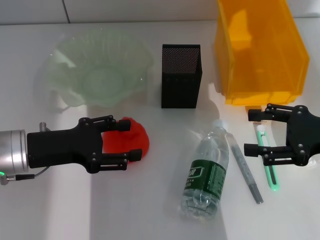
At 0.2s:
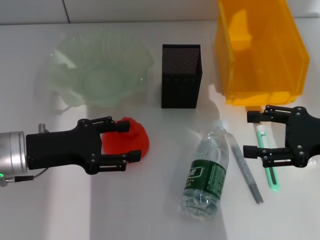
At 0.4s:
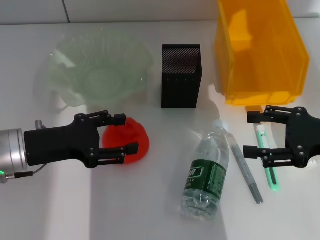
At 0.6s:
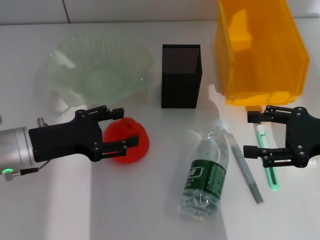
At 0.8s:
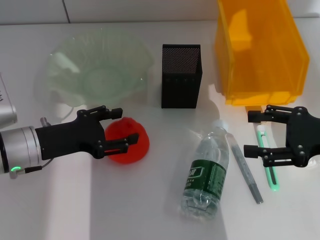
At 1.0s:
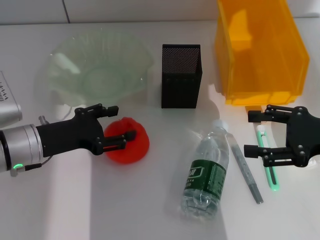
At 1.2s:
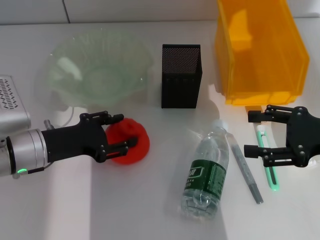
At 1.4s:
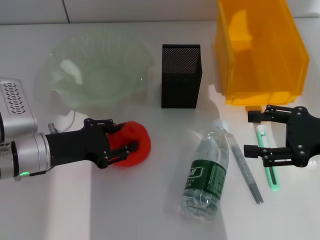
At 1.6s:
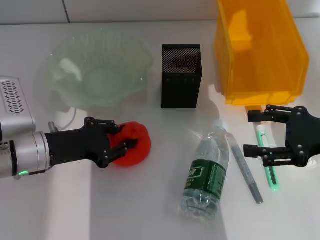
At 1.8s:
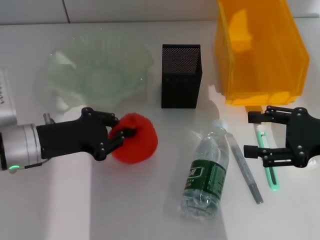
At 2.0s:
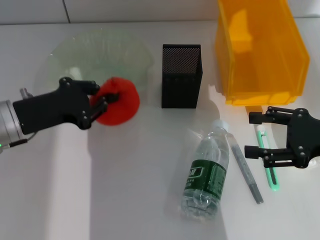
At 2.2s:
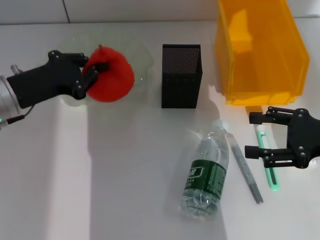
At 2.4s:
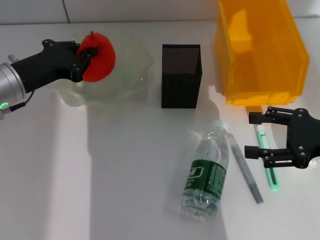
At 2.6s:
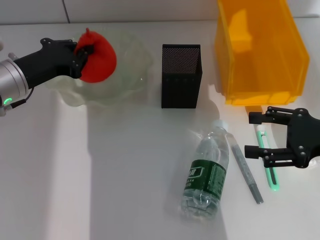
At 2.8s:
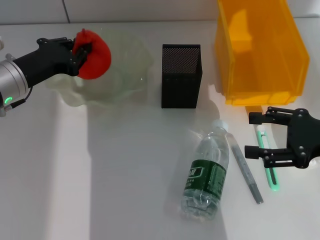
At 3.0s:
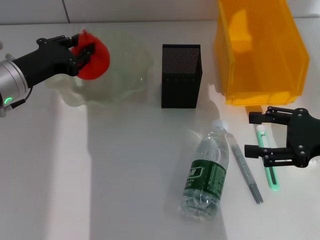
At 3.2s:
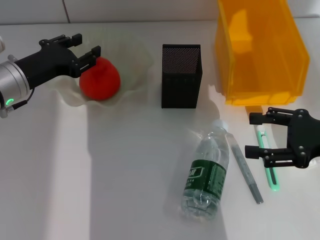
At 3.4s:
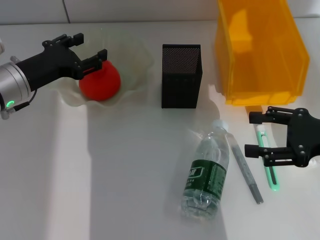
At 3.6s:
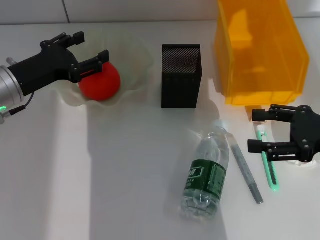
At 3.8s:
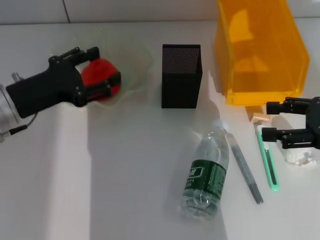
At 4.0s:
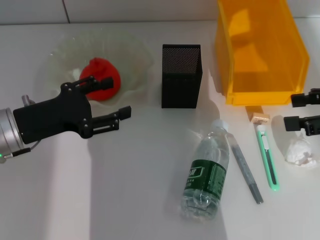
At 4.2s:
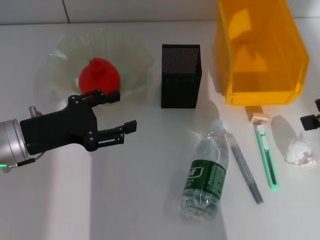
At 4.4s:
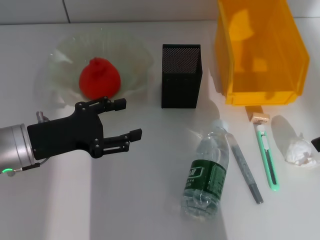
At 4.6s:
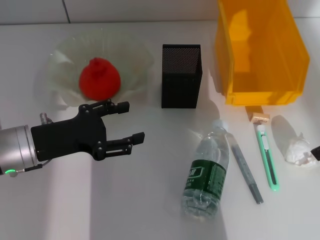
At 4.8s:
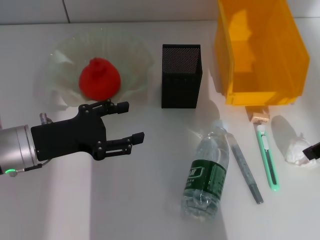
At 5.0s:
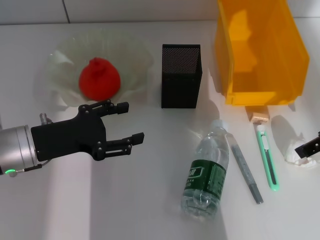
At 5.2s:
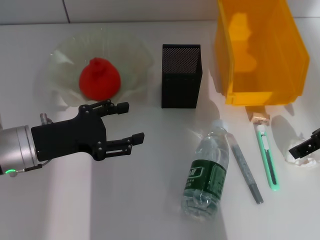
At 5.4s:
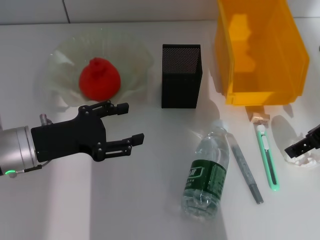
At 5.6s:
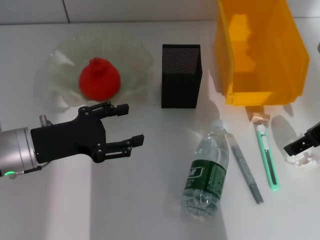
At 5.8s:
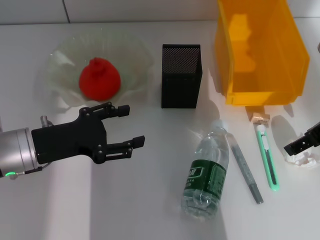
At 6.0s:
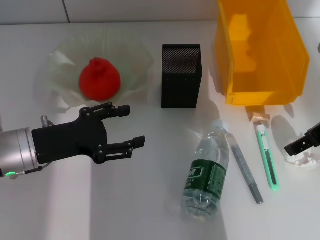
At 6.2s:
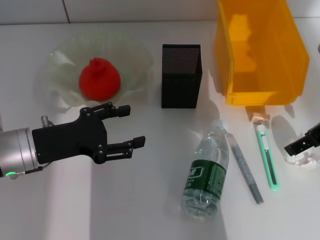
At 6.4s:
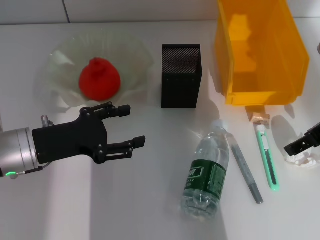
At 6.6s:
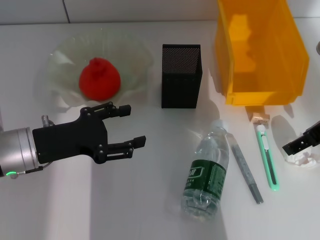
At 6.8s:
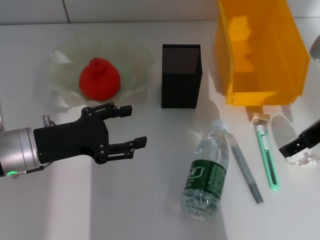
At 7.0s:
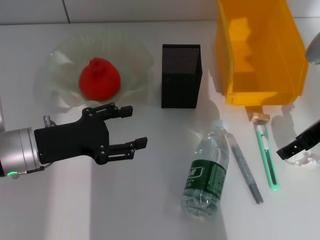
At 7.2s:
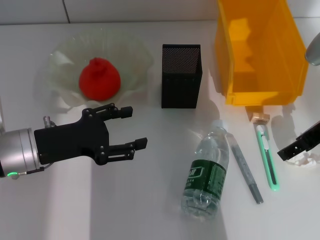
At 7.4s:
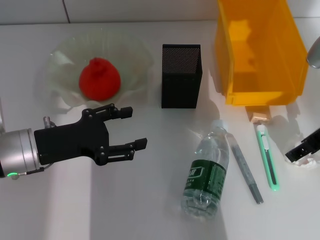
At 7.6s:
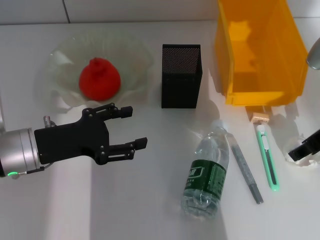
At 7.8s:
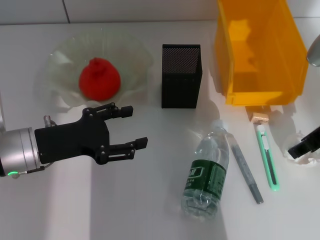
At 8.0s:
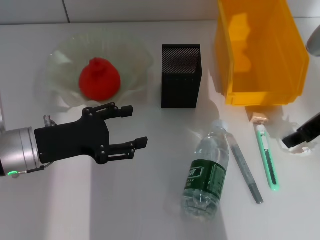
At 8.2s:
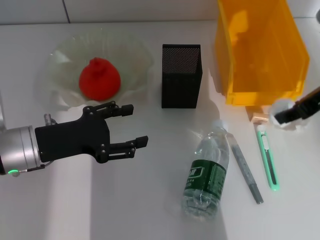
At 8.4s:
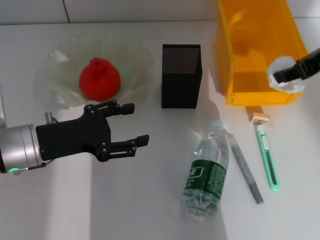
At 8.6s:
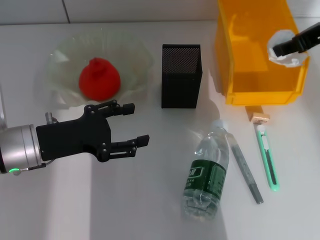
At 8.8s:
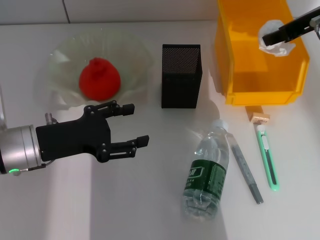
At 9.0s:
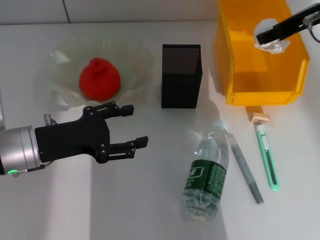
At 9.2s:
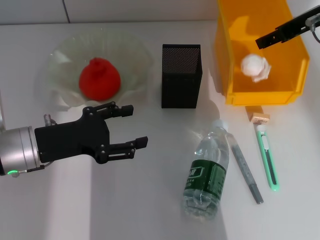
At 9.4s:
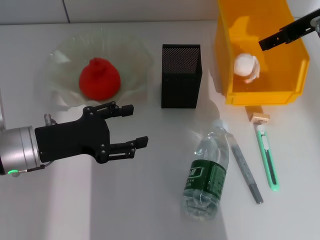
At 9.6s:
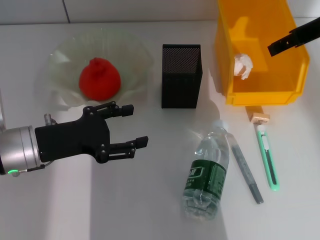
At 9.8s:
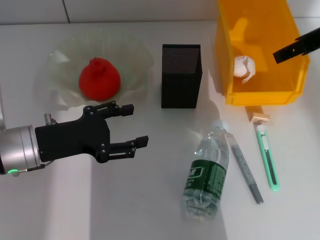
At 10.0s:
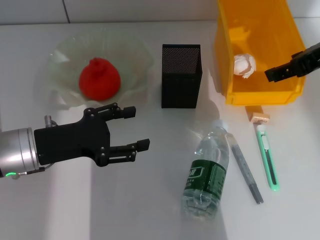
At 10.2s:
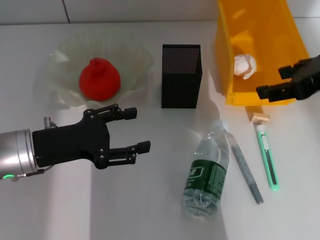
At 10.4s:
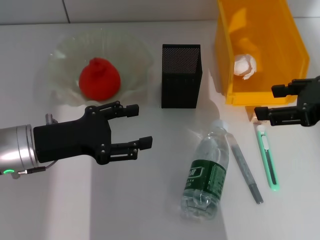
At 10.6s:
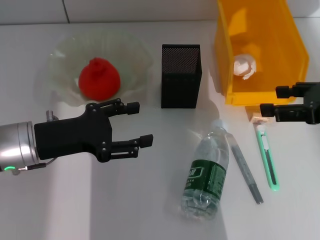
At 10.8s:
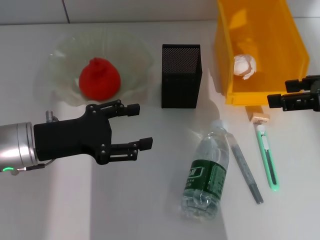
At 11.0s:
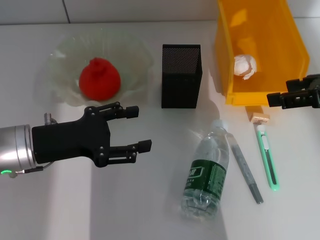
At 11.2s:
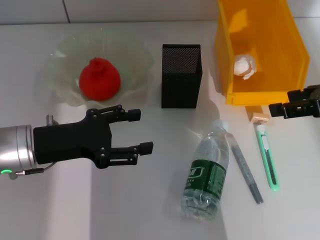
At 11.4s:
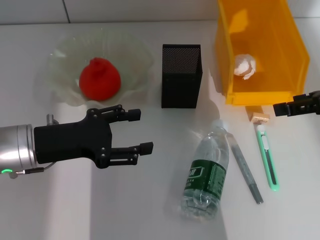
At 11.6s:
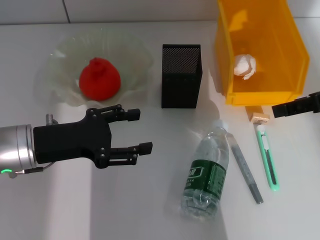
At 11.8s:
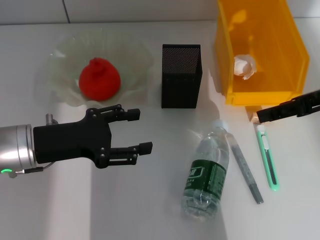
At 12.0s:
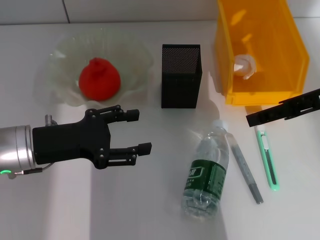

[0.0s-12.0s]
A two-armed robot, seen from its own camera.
Step, 0.0s to 1.6s: Grab the orange with the left hand.
Step, 1.8s to 3.4s: Place the orange into the fruit bowl with the left hand.
Step, 3.6s to 7.6s: Grab the paper ball with the right hand.
Step, 7.8s to 9.8s: Place the paper ball into the trash can with the right hand.
0.0s to 1.6s: The left gripper closes up.
1.6s to 3.0s: The left gripper is displaced forward by roughly 10 cm.
3.0s to 4.4s: The right gripper is displaced upward by some 15 cm. The left gripper shifts approximately 10 cm backward, and opens its fingers.
4.4s to 6.0s: The right gripper heads downward, covering some 5 cm.
6.0s to 7.6s: The grippers stay close to where they were, moving slightly.
7.6s to 9.0s: The right gripper heads forward and upward, covering approximately 10 cm.
9.0s to 10.4s: The right gripper heads backward, covering about 15 cm.
10.4s to 12.0s: The right gripper moves roughly 5 cm.

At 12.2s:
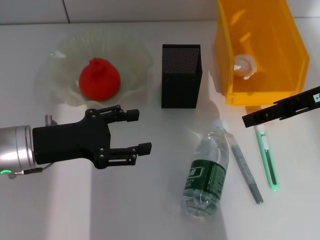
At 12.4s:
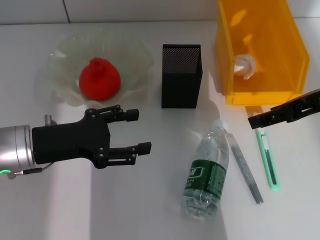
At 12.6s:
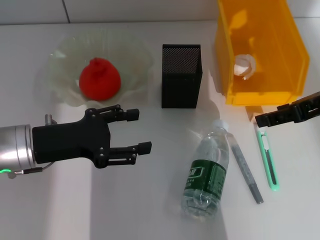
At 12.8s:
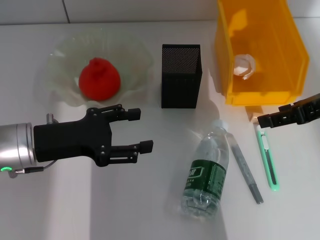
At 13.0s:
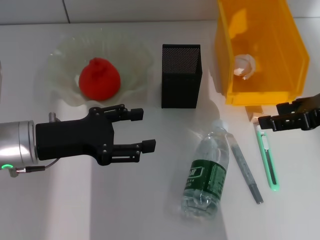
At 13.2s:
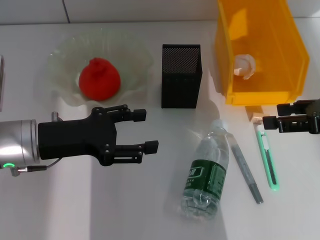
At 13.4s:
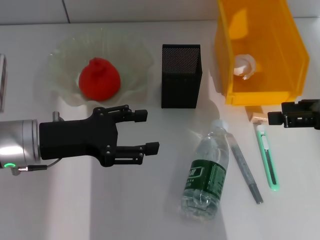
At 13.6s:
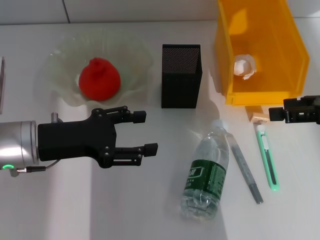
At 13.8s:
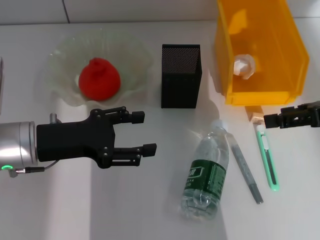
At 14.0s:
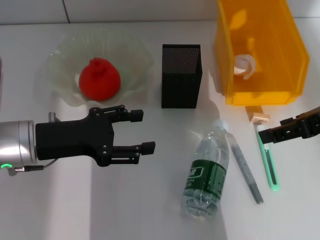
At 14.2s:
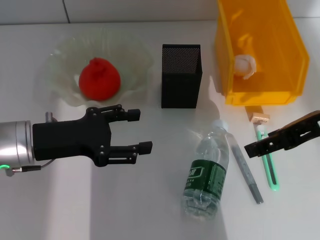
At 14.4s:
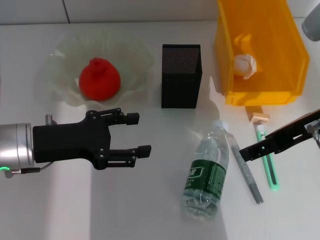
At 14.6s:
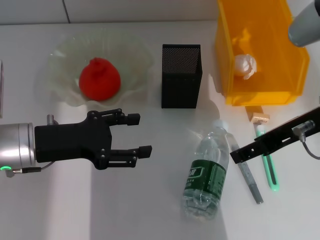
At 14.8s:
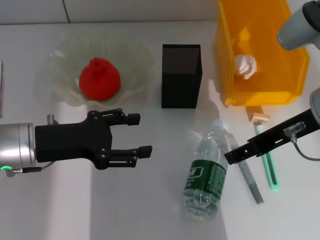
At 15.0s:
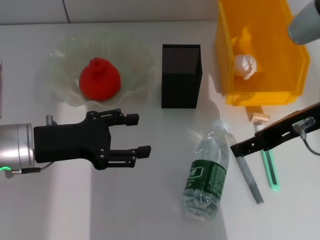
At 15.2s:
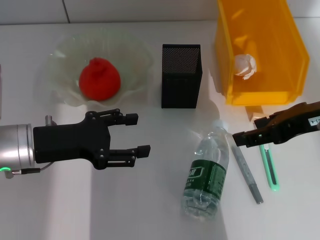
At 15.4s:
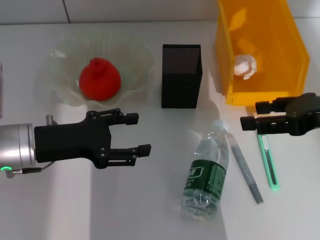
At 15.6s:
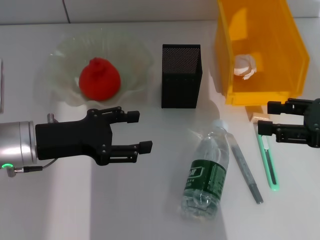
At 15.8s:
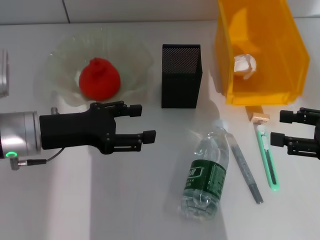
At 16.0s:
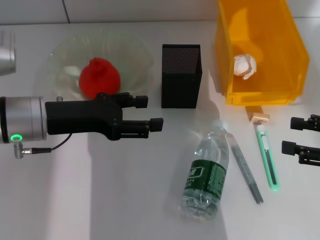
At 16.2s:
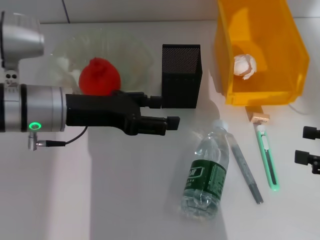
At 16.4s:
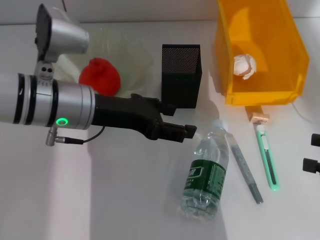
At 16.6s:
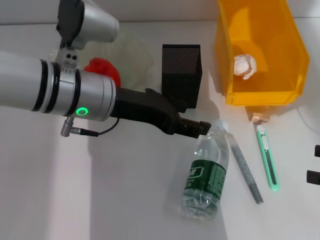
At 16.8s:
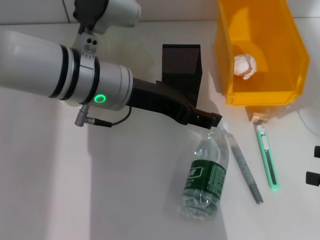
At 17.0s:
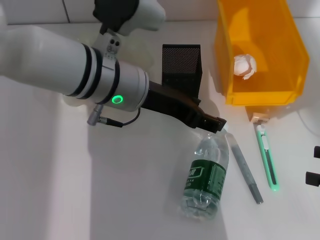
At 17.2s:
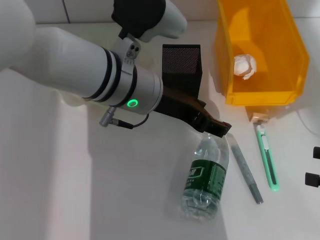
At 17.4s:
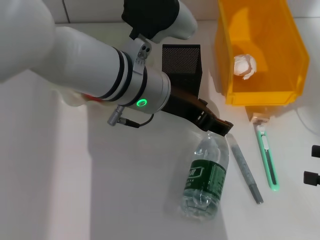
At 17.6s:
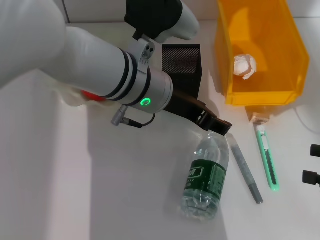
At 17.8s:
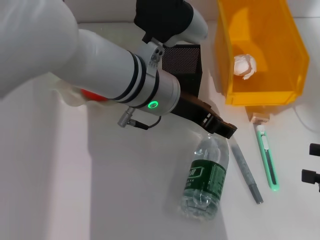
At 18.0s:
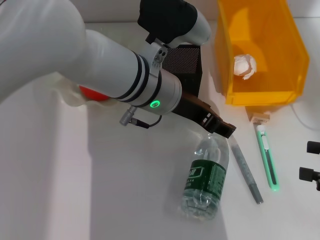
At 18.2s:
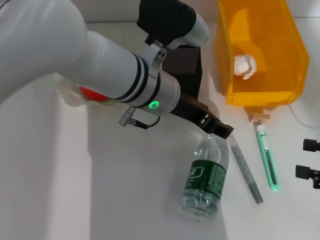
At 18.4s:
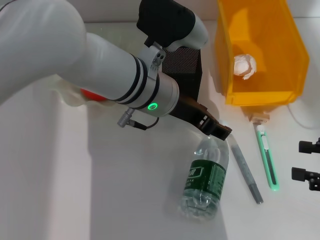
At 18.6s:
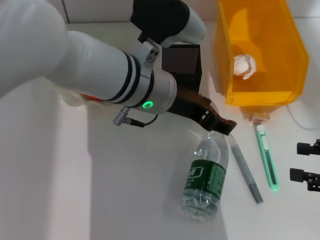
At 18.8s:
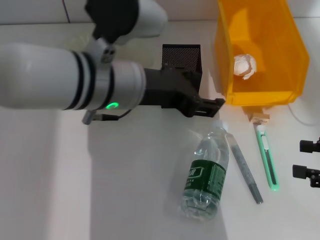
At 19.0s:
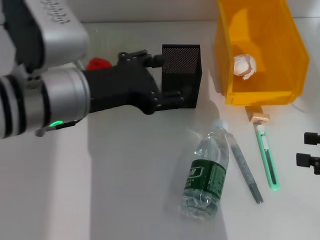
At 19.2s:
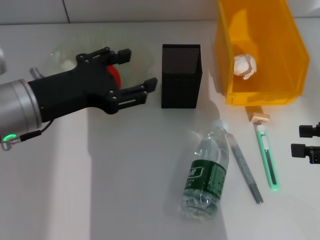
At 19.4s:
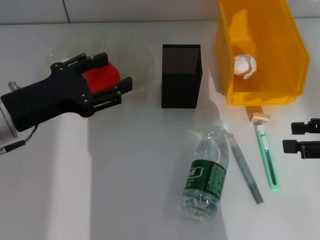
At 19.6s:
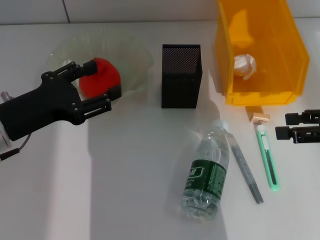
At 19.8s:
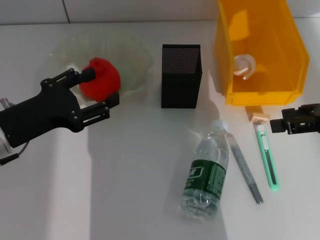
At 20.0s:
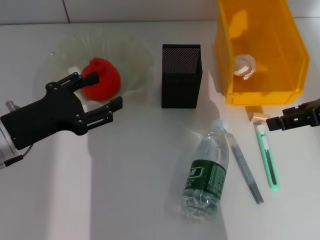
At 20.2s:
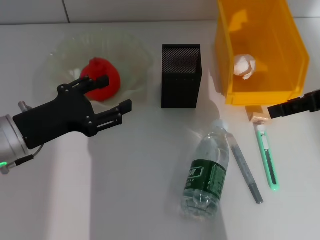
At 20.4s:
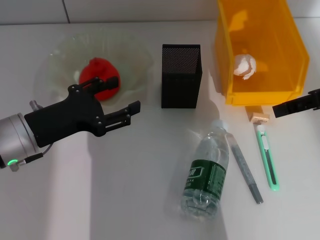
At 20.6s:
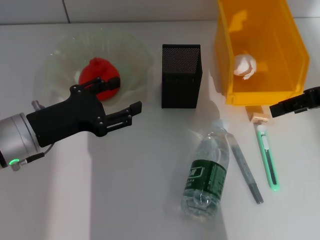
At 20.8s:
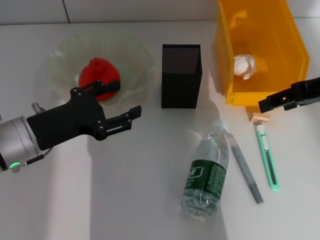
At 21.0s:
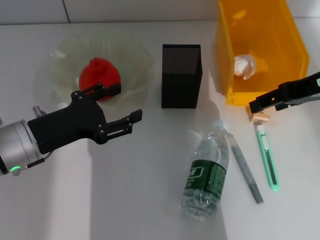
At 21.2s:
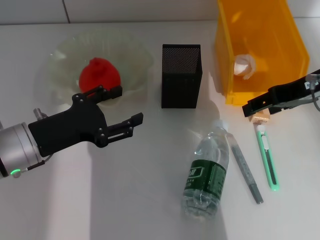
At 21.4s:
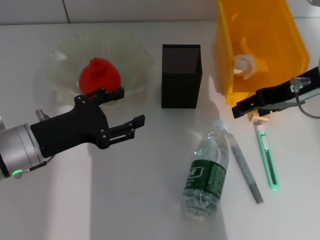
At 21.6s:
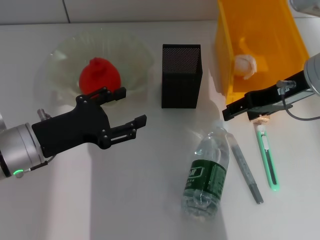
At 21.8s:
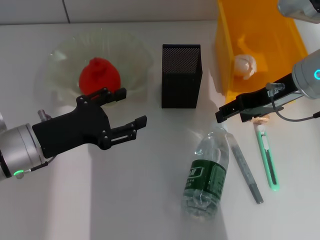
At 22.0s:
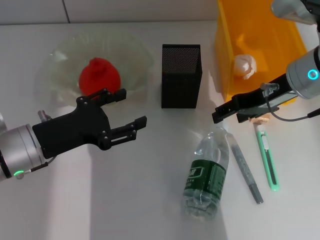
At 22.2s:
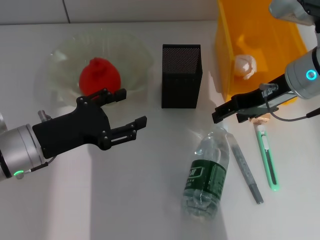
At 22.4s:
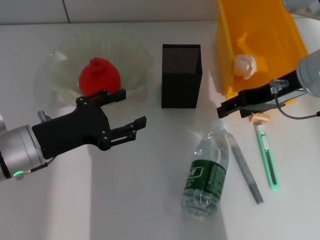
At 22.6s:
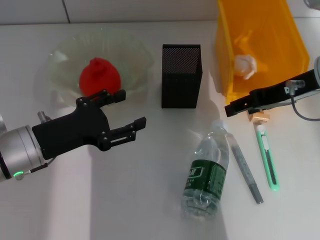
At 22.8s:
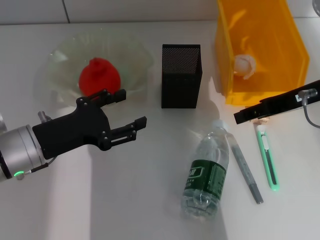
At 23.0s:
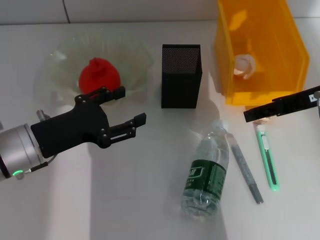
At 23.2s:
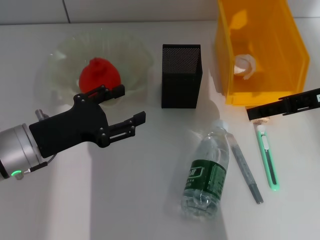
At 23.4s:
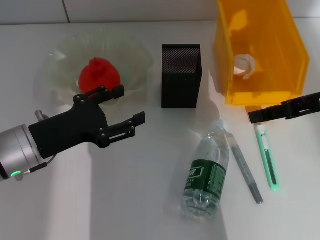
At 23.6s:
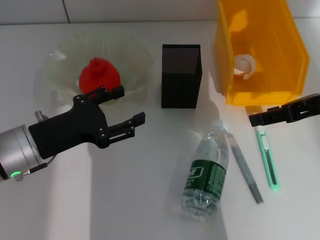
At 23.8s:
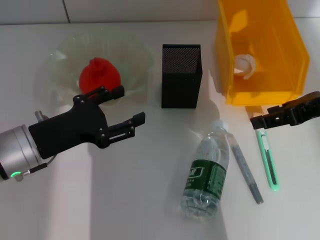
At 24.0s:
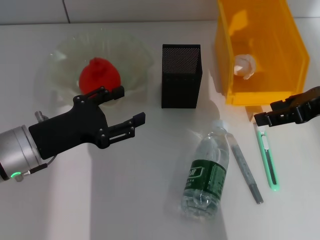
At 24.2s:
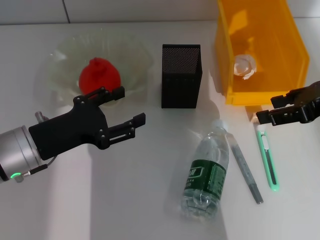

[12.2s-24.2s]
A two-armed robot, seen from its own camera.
12.2s to 13.8s: The right gripper travels to the right by approximately 5 cm.
13.8s to 15.2s: The right gripper moves to the left, about 5 cm.
15.2s to 16.6s: The left gripper is displaced to the right and upward by some 15 cm, while the right gripper heads to the right, downward and backward, covering roughly 20 cm.
16.6s to 18.2s: The left gripper travels to the right by approximately 10 cm.
18.2s to 19.8s: The left gripper travels to the left by roughly 20 cm. Meanwhile the right gripper travels forward and upward by roughly 10 cm.
19.8s to 21.2s: The right gripper travels to the left by roughly 10 cm.
22.6s to 24.2s: The right gripper goes about 5 cm to the right.
